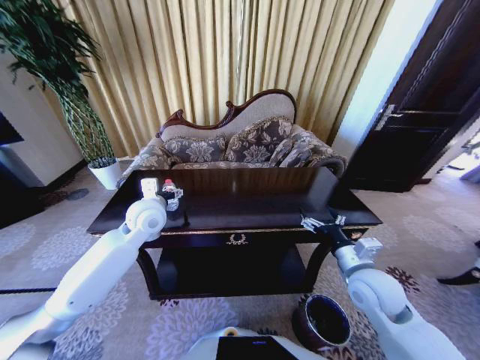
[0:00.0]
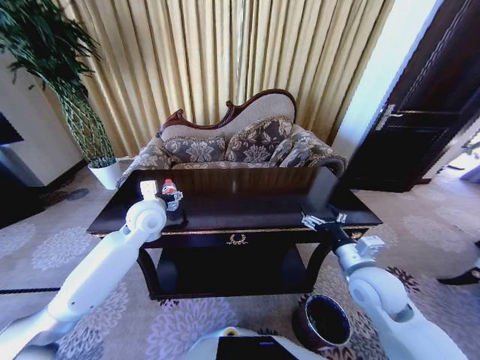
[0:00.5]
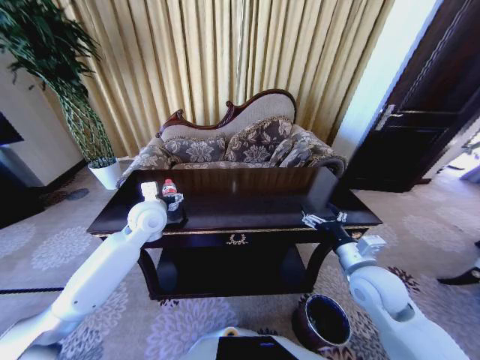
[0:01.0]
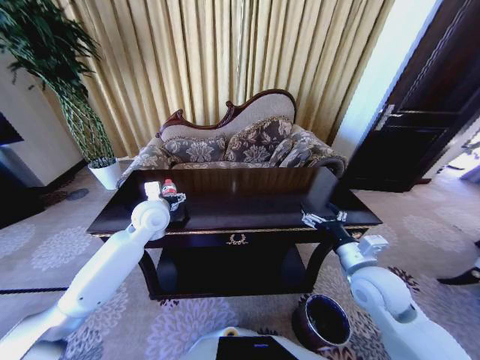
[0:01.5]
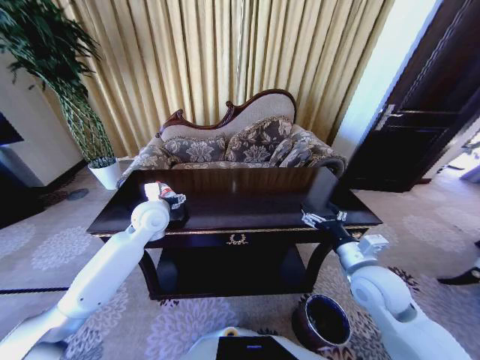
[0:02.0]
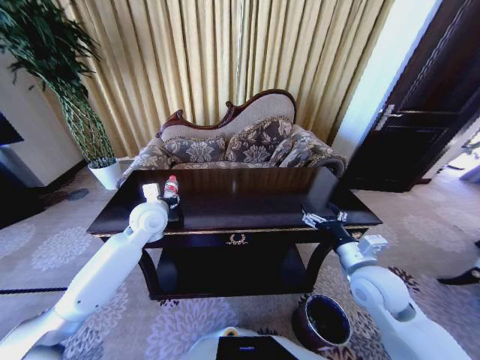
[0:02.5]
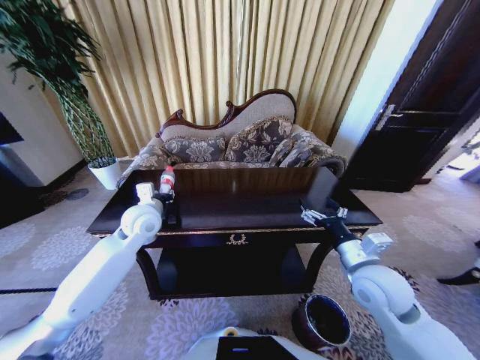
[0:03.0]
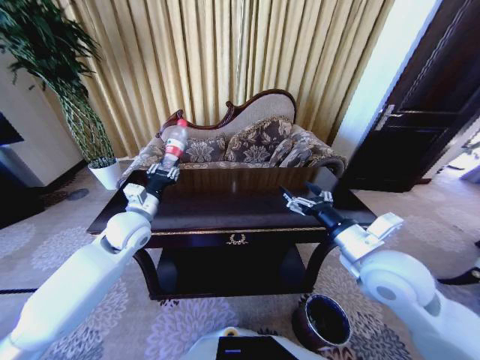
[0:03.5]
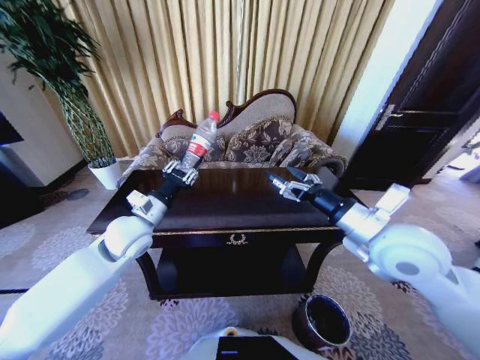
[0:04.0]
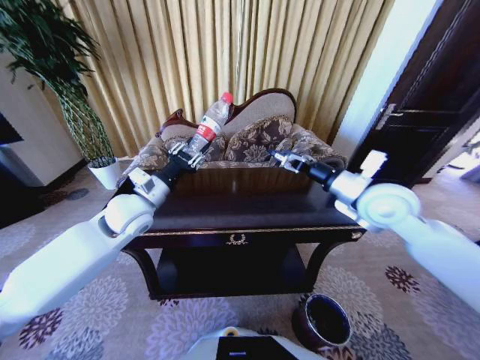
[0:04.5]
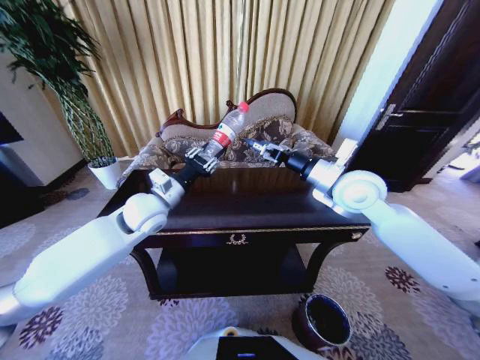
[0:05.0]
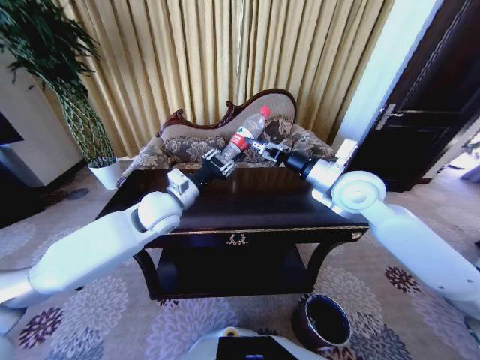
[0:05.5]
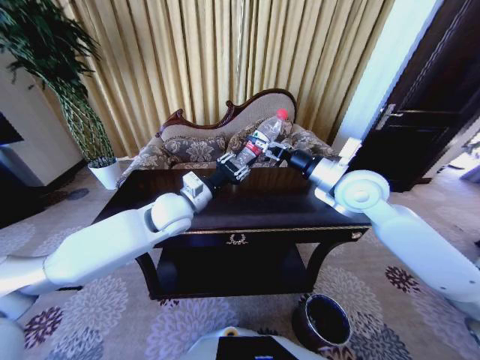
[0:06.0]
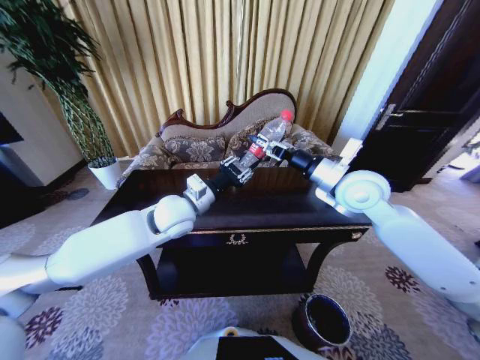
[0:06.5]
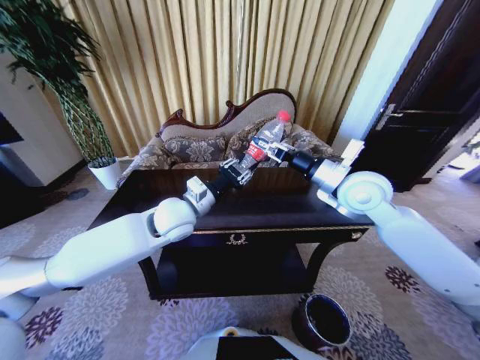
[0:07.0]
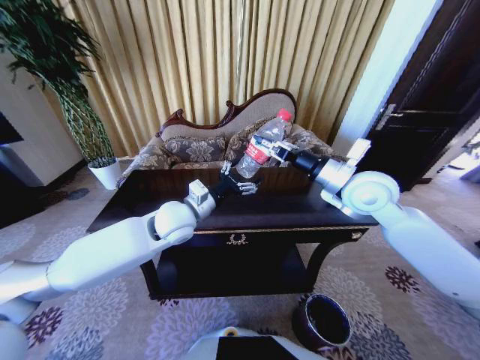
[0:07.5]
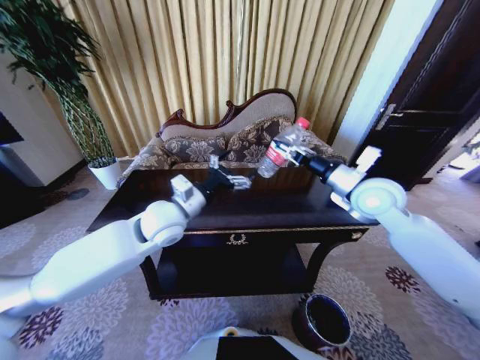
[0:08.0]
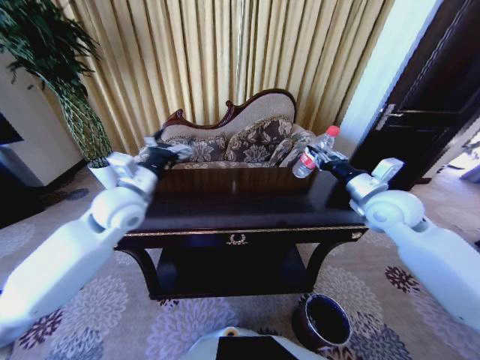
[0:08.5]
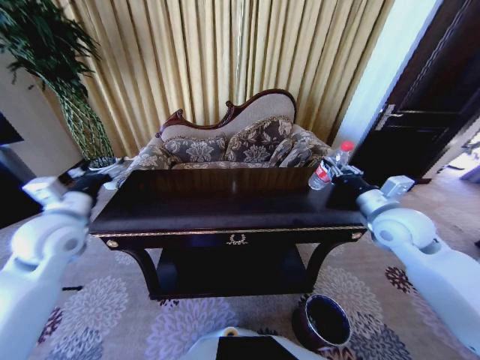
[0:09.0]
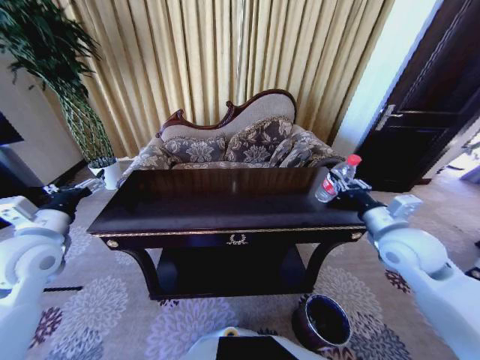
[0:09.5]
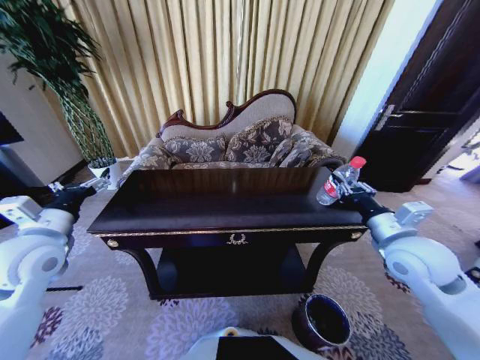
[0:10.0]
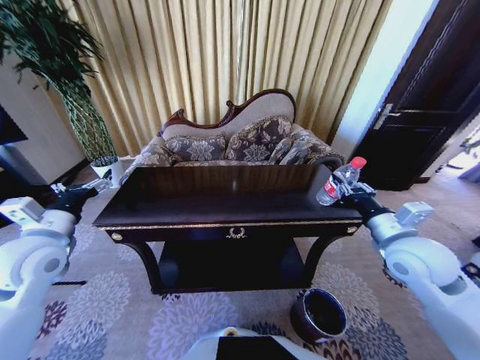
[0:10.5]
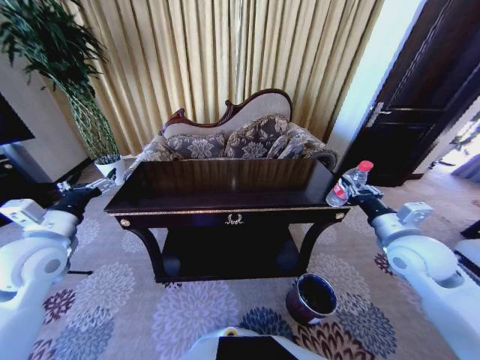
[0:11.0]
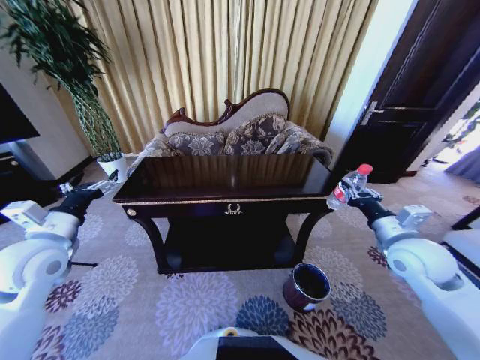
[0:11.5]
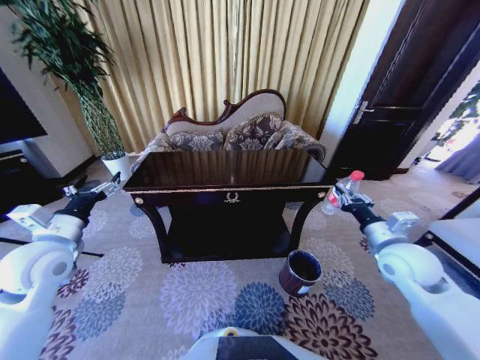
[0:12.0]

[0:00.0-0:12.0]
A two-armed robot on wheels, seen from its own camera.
Task of the whole recording: Move to the front of the table and place the trash on the table into the trash bin.
0:00.0 to 0:02.0: The grippers make only small movements.
0:02.0 to 0:04.0: The left gripper moves backward, some 5 cm, and closes. Meanwhile the right gripper is displaced upward by some 15 cm.
0:04.0 to 0:06.0: The right gripper moves forward, some 15 cm, while the left gripper moves to the right, approximately 10 cm.
0:06.0 to 0:08.0: The left gripper opens up; the right gripper travels to the right by approximately 5 cm, and closes.
0:08.0 to 0:10.0: The left gripper goes roughly 20 cm to the left; the right gripper shifts roughly 15 cm backward and downward.
0:10.0 to 0:12.0: The right gripper moves approximately 5 cm.

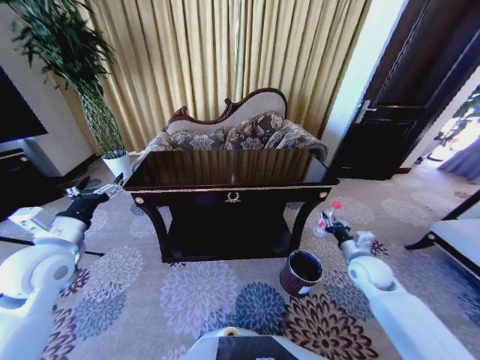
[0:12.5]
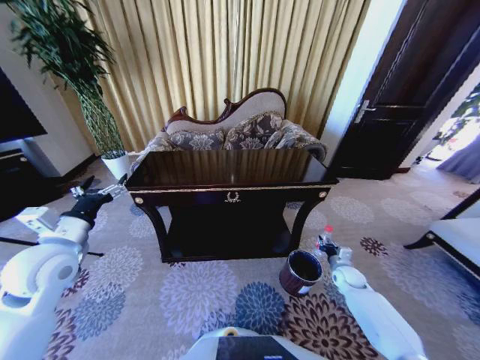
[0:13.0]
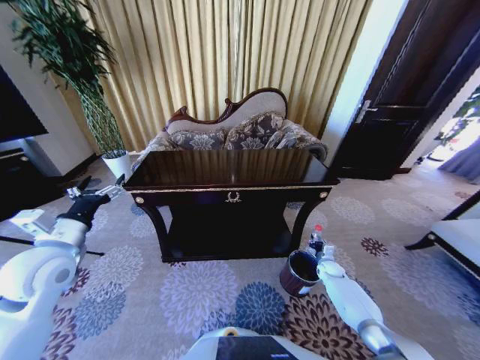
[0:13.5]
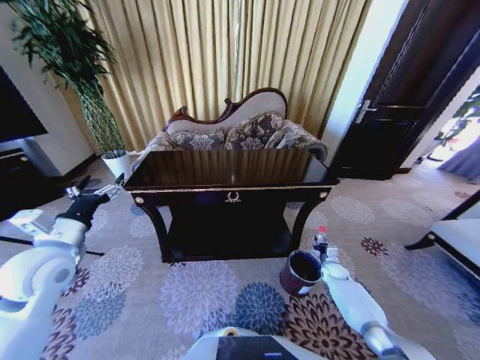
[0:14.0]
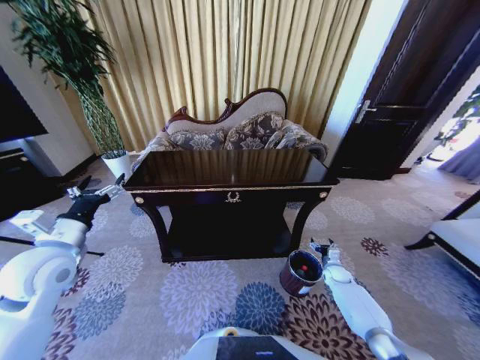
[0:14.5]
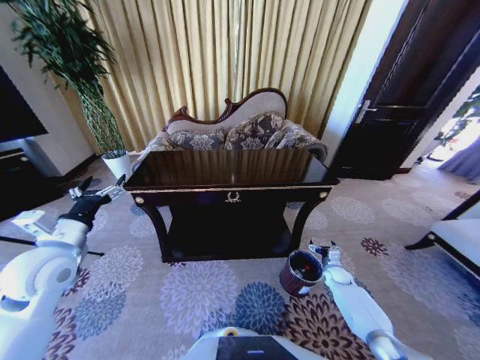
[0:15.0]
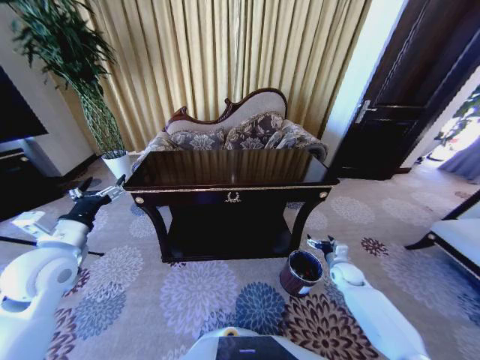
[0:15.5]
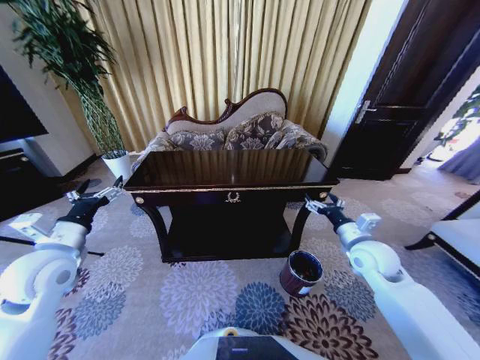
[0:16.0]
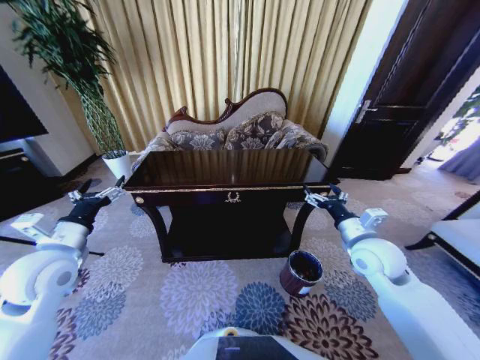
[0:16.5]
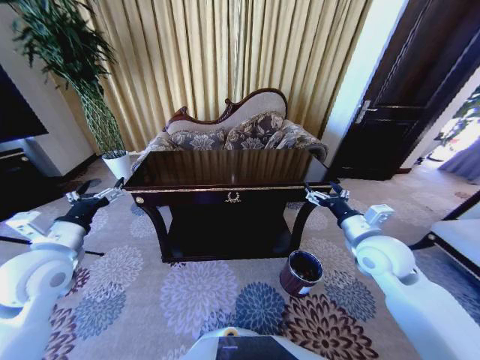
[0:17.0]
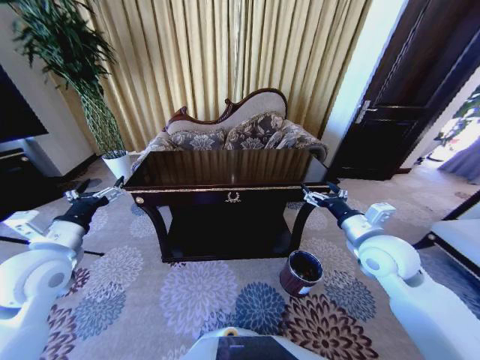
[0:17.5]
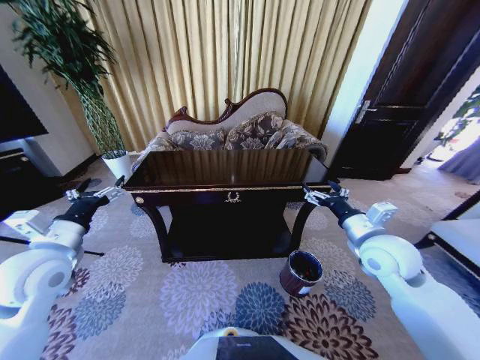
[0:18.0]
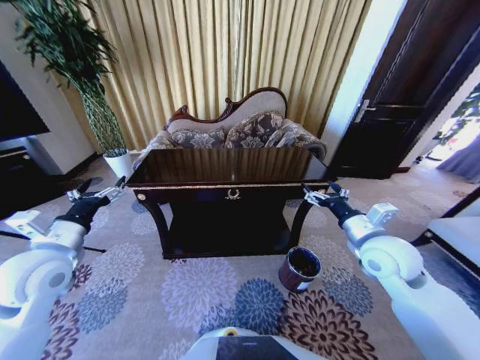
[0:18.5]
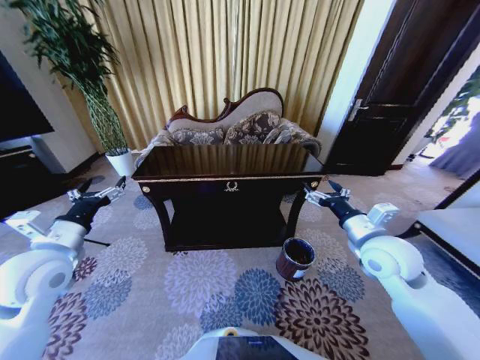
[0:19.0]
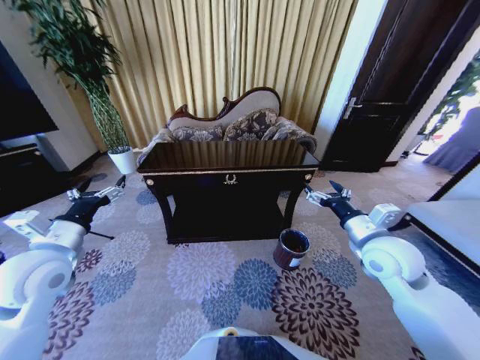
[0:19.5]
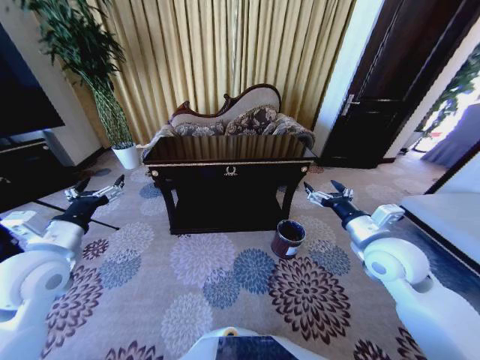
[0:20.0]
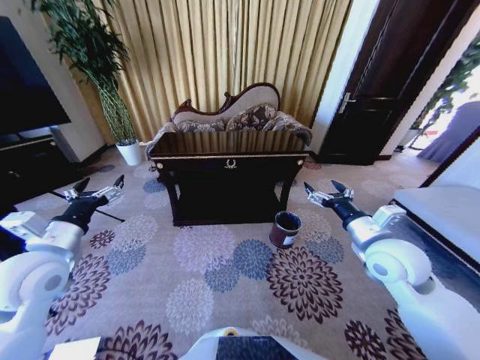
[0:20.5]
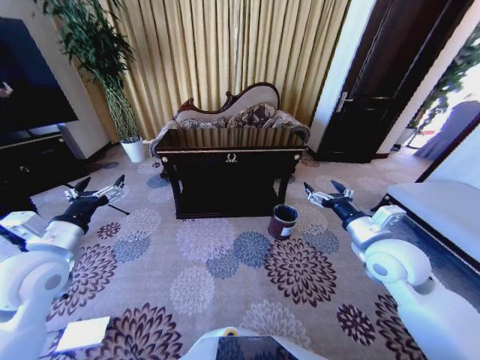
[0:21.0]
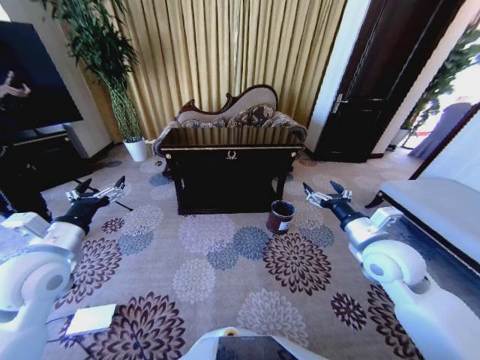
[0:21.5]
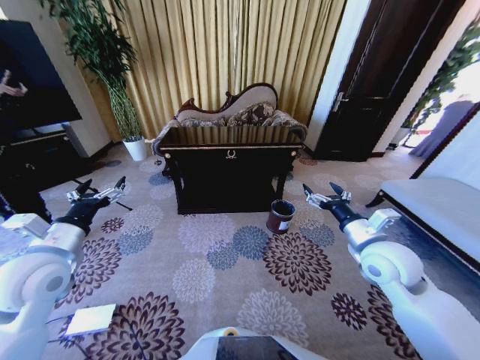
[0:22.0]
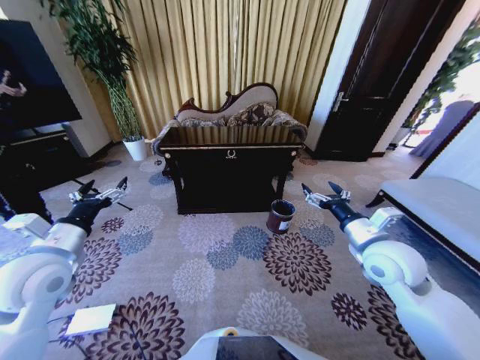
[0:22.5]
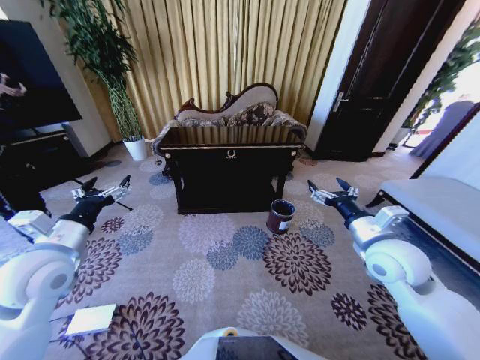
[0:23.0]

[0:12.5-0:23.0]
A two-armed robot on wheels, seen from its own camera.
Task of the whole recording: Move to the front of the table and place the trash on the table into the trash bin.
0:12.5 to 0:14.5: The right gripper goes about 20 cm downward, and opens up.
0:14.5 to 0:16.5: The right gripper shifts approximately 35 cm upward.

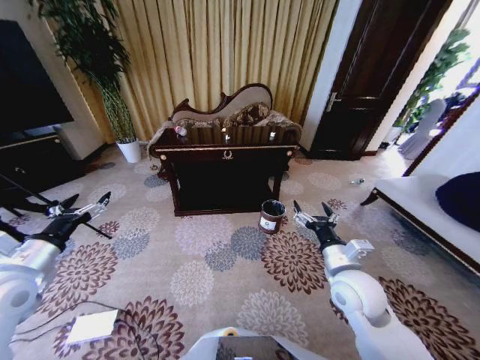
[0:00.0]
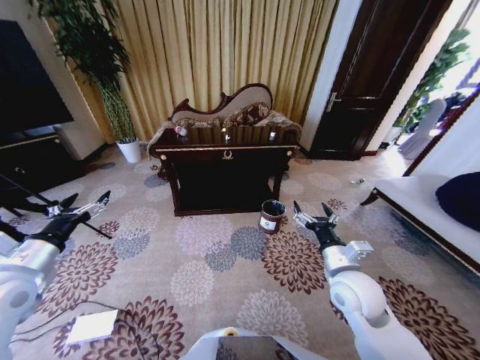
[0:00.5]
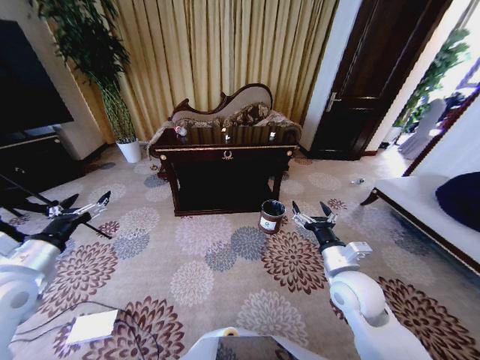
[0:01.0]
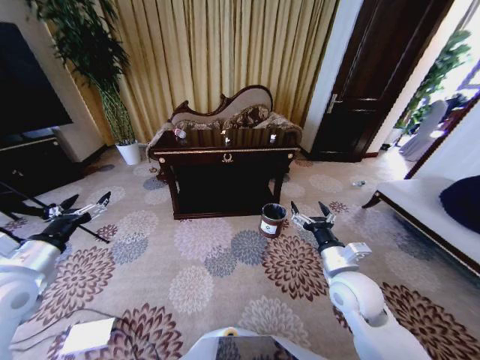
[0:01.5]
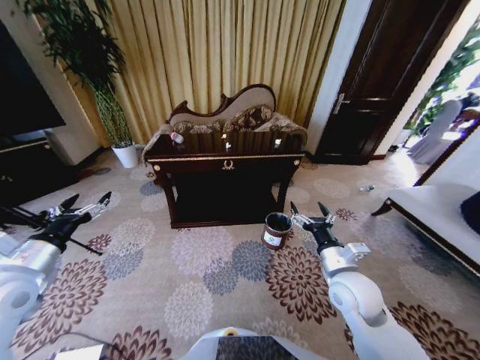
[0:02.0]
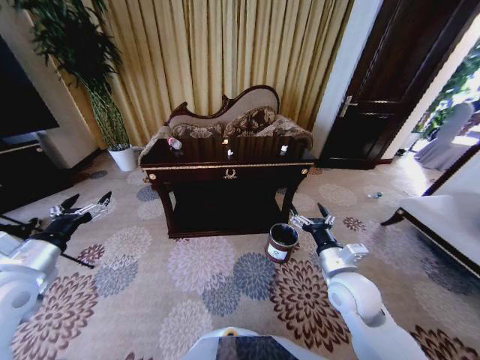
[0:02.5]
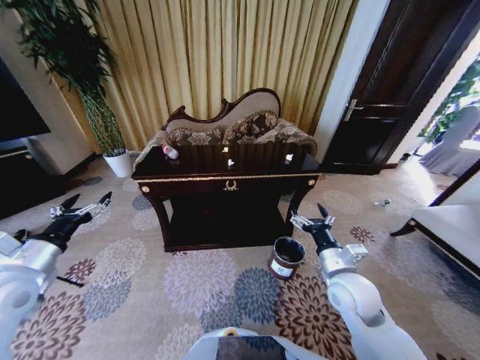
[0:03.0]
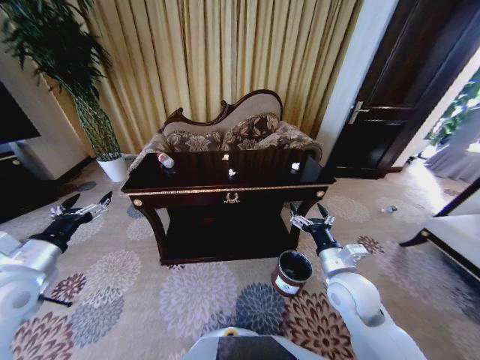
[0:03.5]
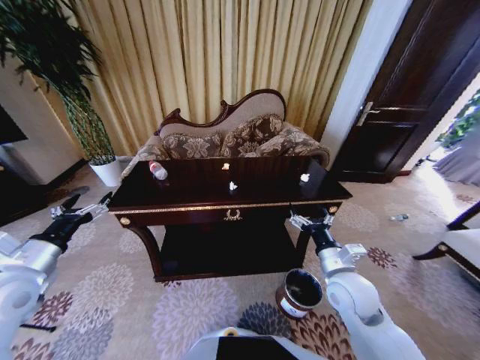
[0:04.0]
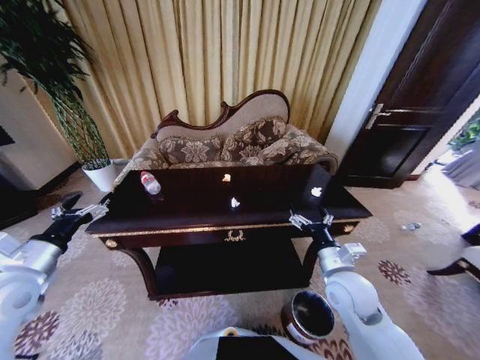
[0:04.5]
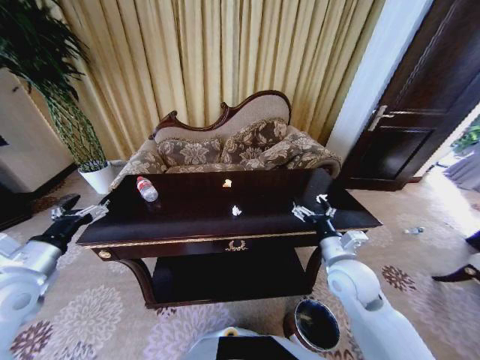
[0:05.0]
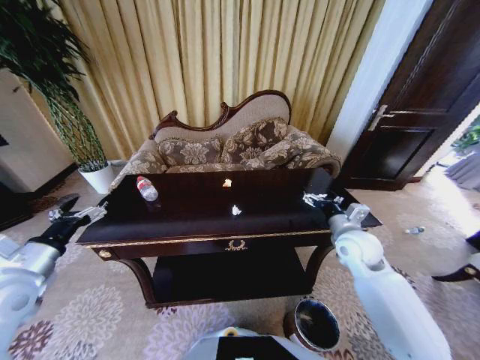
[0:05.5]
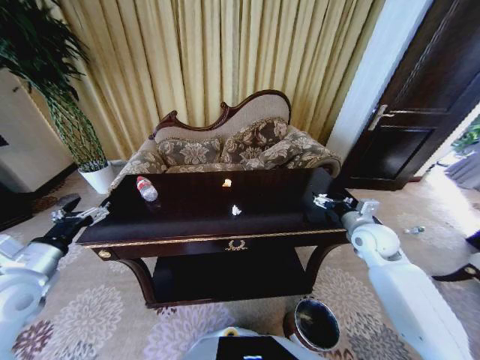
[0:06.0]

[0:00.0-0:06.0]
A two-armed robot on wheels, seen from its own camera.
Task of the whole recording: Move to the front of the table and place the trash on the table into the trash bin.
0:04.0 to 0:06.0: The right gripper shifts approximately 20 cm forward and to the right.
